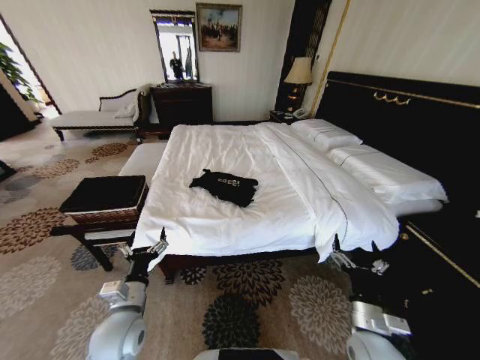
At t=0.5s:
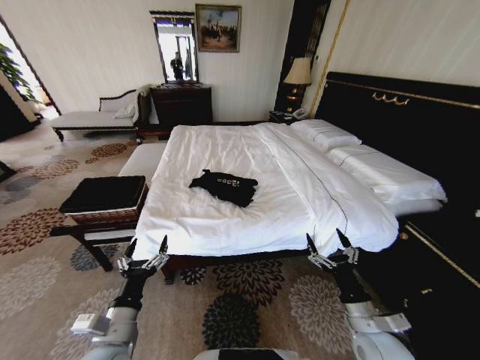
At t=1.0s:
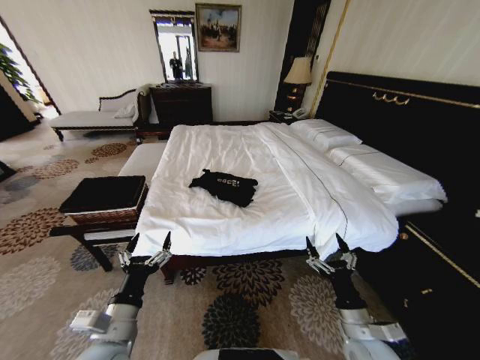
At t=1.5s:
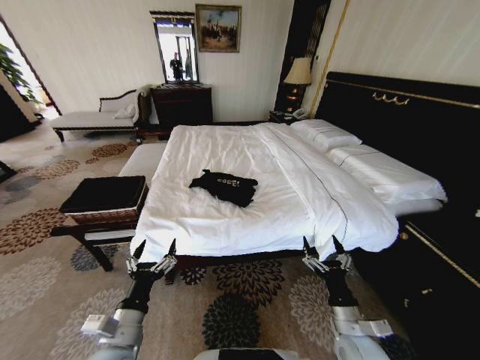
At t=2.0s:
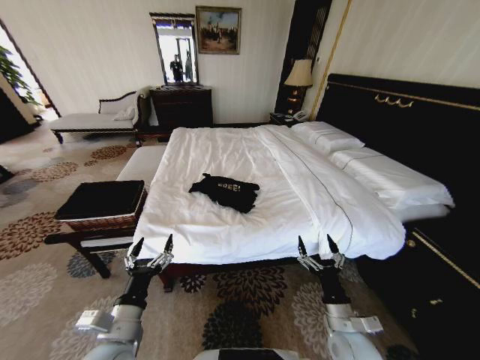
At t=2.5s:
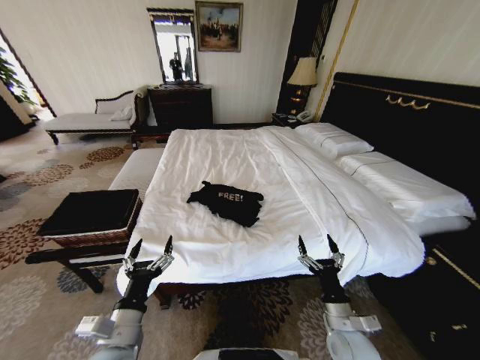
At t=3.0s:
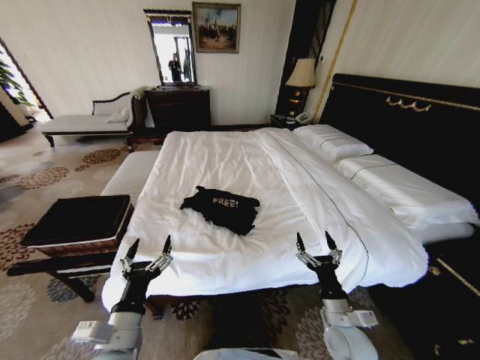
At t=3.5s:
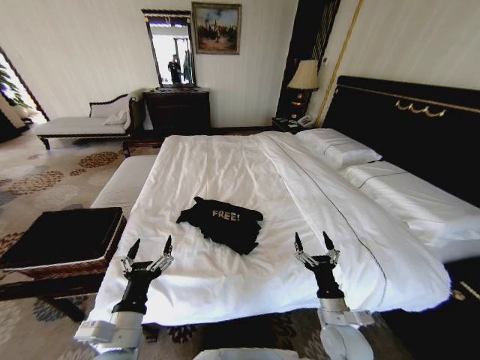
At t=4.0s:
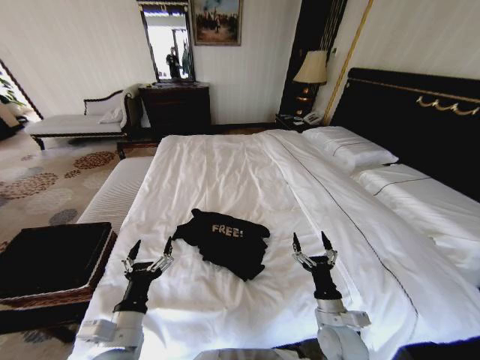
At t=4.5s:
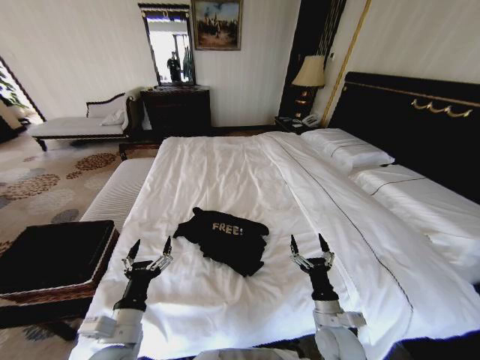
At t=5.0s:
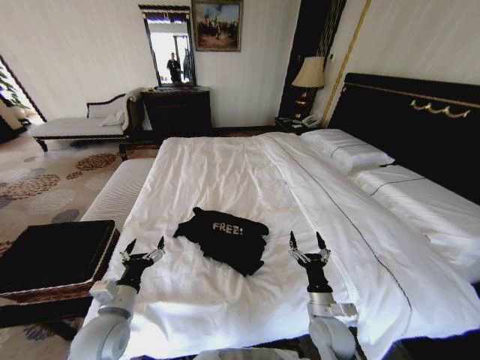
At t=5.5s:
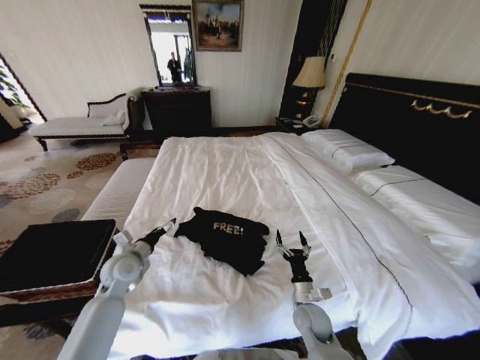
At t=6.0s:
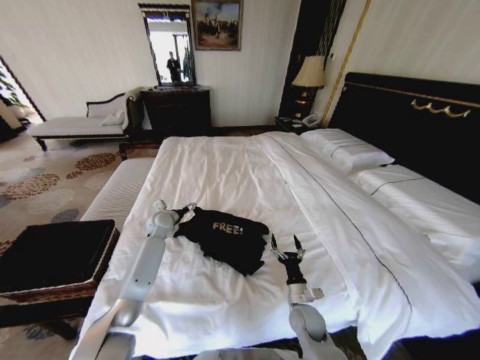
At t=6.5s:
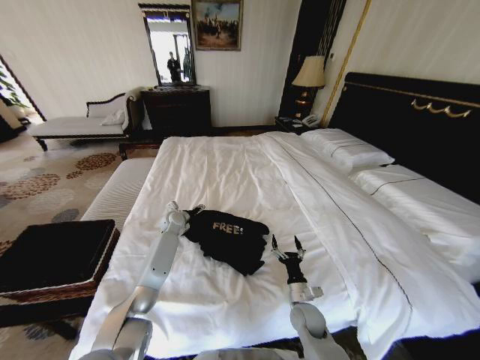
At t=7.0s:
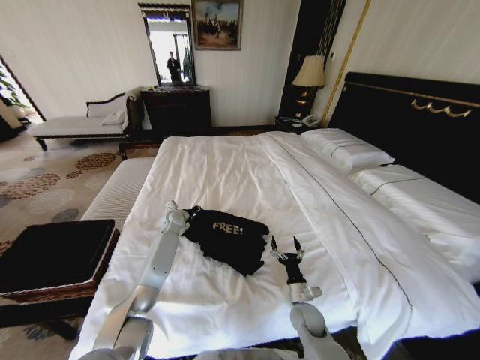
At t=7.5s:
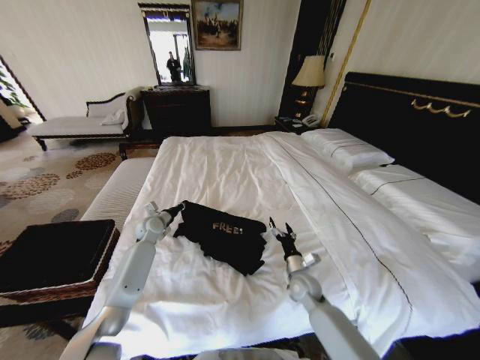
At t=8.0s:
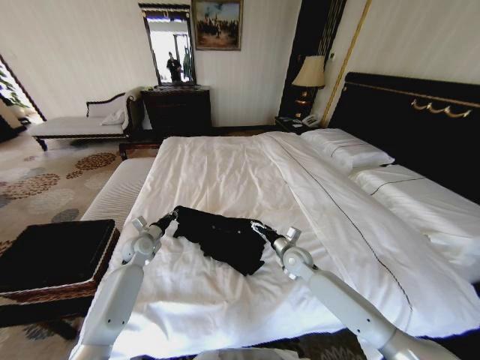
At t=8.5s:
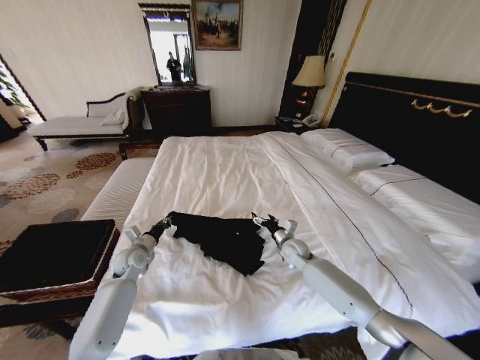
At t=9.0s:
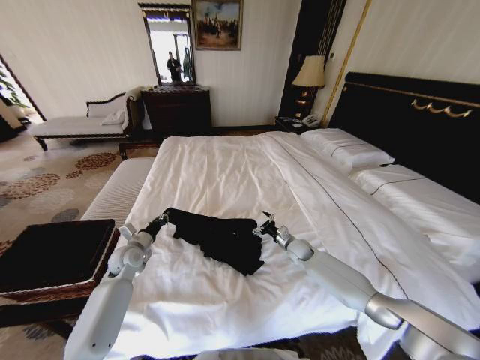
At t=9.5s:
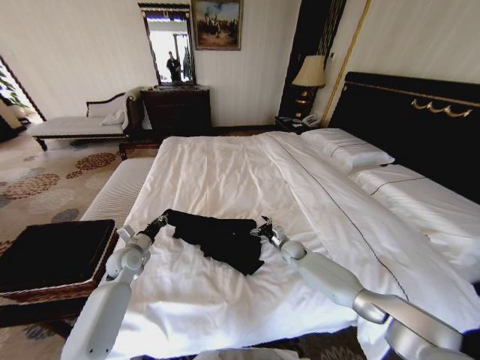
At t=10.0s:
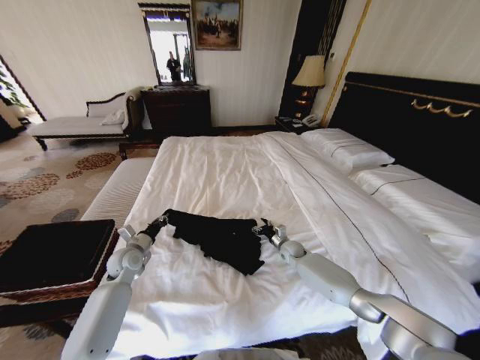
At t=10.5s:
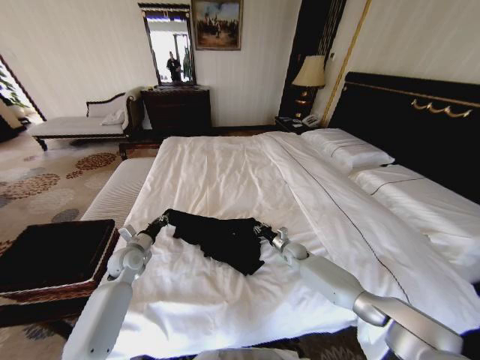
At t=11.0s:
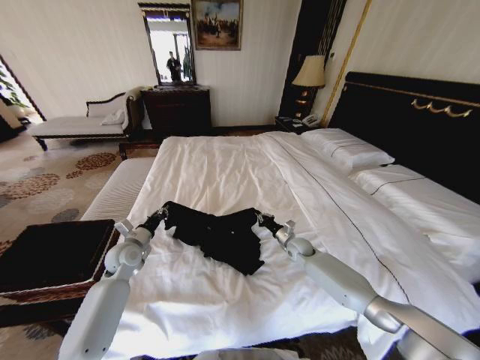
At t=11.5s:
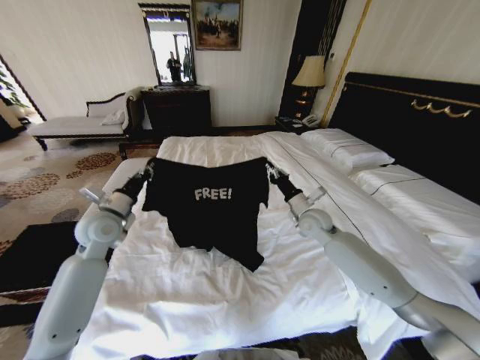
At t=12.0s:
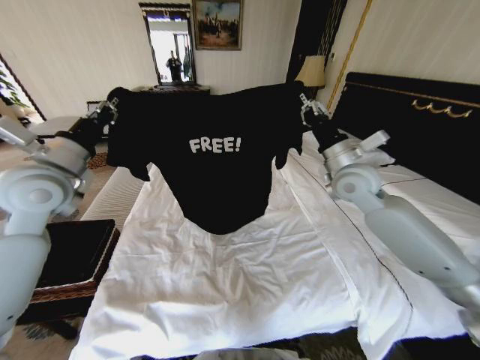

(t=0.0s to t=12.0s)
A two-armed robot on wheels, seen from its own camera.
Task of the whole recording: Fold the clothes on the bed and place them into the basket.
t=4.0s - t=6.0s: The right gripper heads downward and forward, covering about 10 cm; the left gripper shifts about 40 cm forward.
t=6.0s - t=8.0s: The right gripper goes approximately 20 cm forward and upward; the left gripper shifts roughly 10 cm backward and to the left, and closes its fingers.
t=8.0s - t=10.0s: The left gripper shifts approximately 5 cm backward. The right gripper shifts about 10 cm downward and forward.
t=10.0s - t=12.0s: The grippers both shift upward by approximately 35 cm. The right gripper closes.

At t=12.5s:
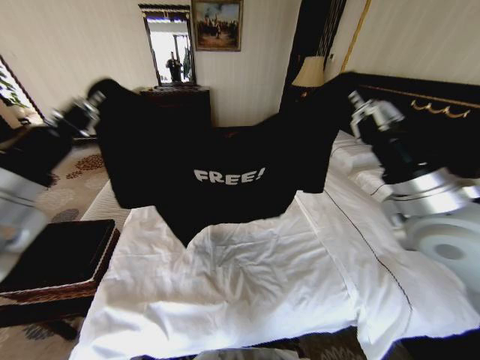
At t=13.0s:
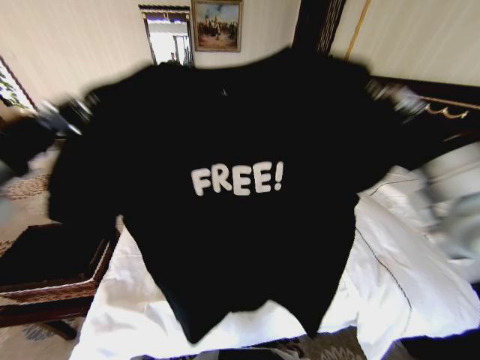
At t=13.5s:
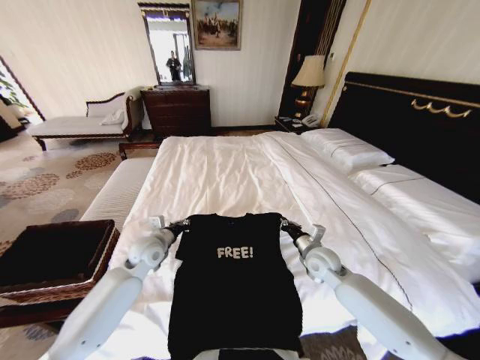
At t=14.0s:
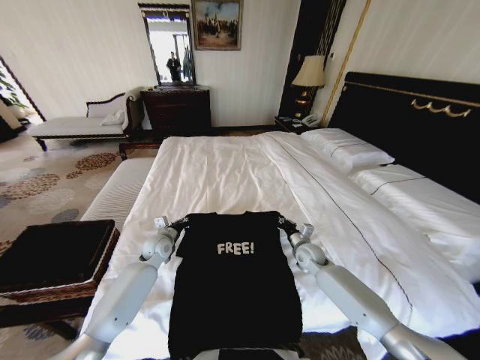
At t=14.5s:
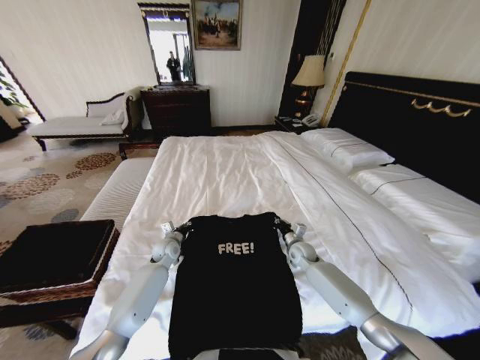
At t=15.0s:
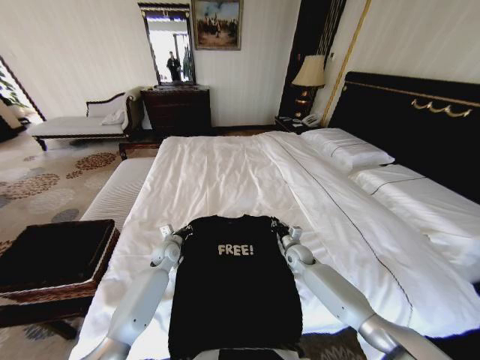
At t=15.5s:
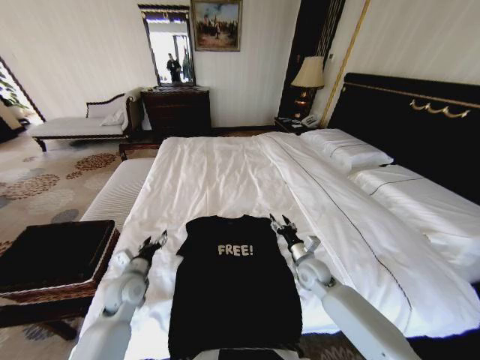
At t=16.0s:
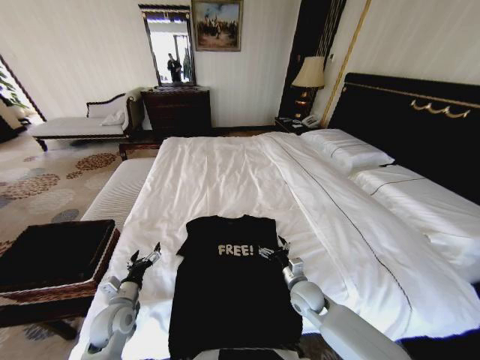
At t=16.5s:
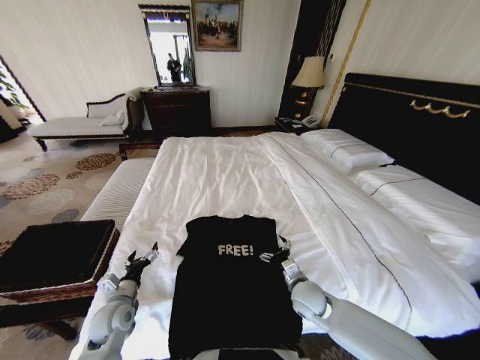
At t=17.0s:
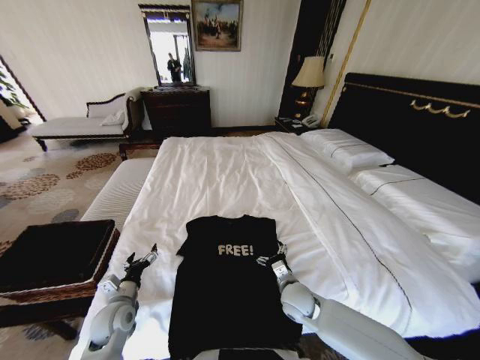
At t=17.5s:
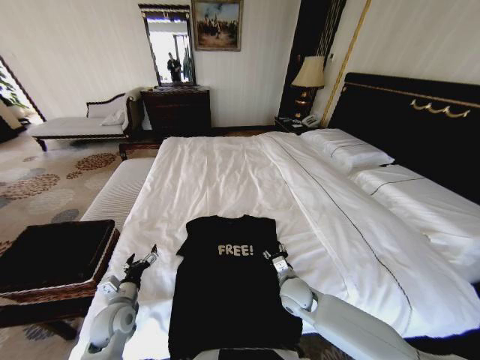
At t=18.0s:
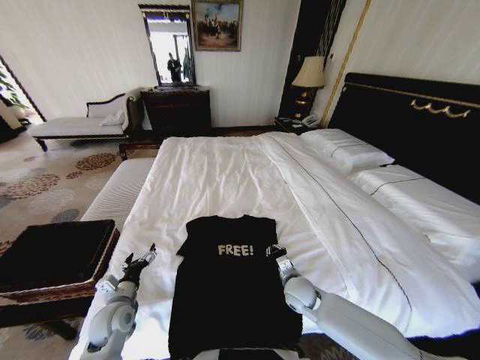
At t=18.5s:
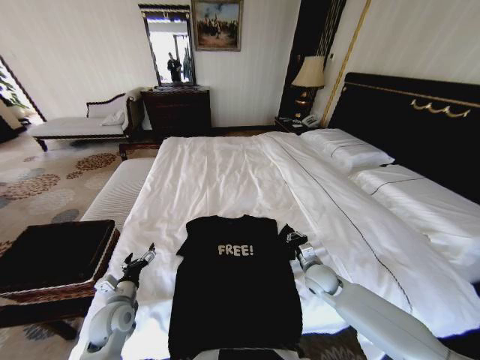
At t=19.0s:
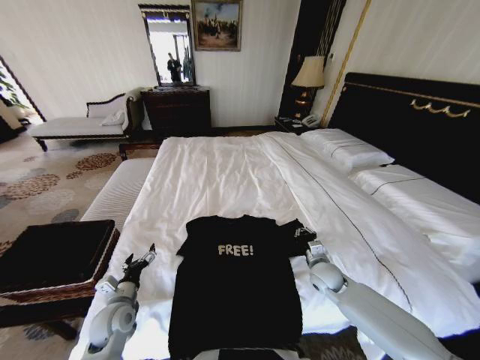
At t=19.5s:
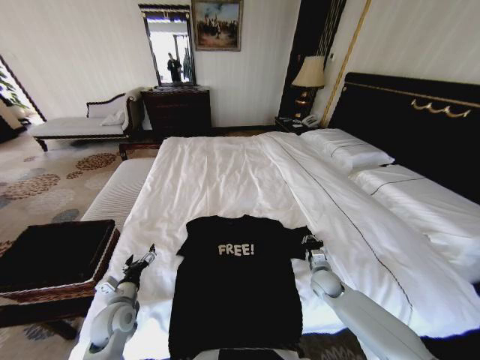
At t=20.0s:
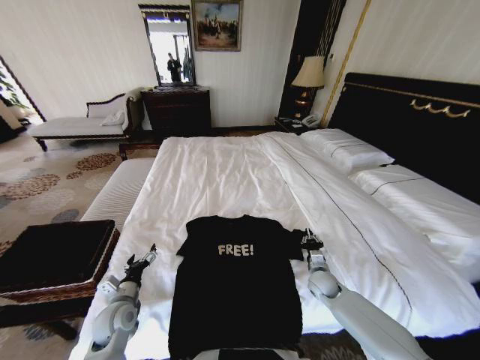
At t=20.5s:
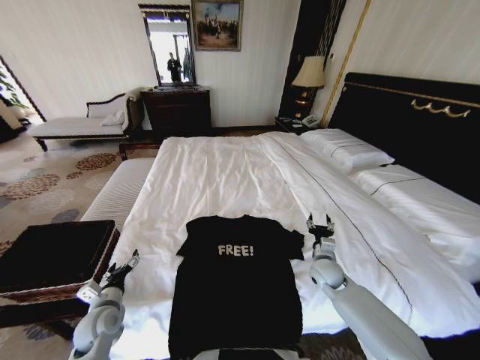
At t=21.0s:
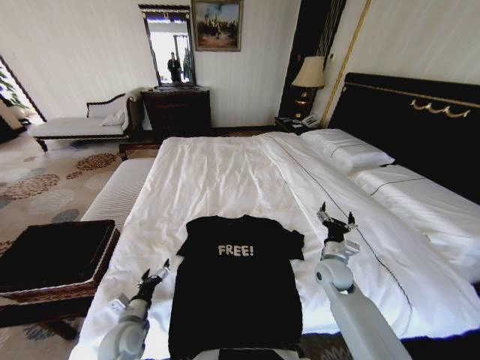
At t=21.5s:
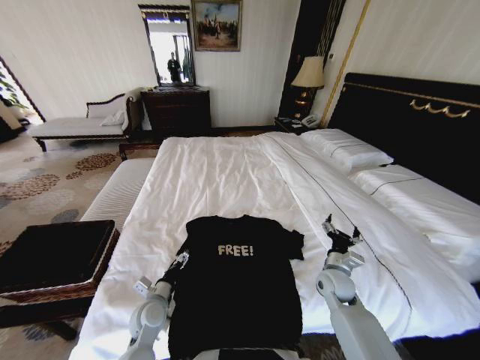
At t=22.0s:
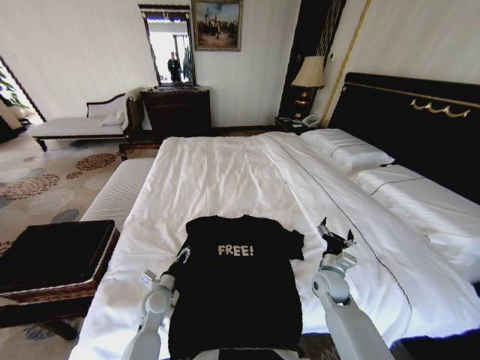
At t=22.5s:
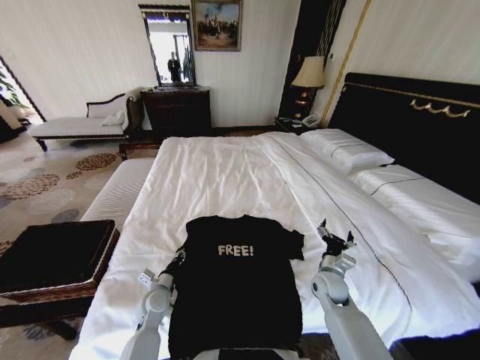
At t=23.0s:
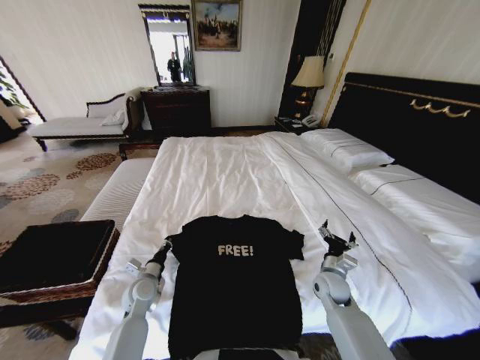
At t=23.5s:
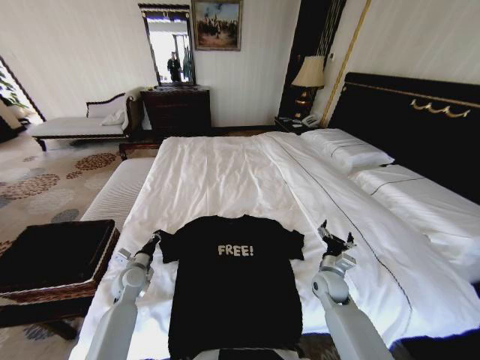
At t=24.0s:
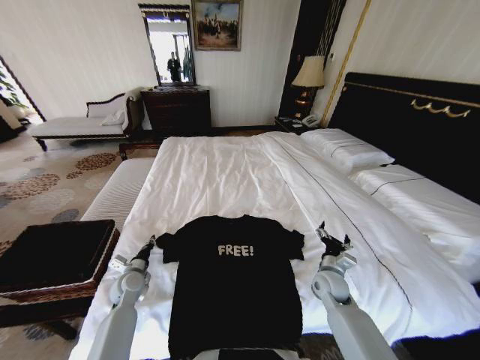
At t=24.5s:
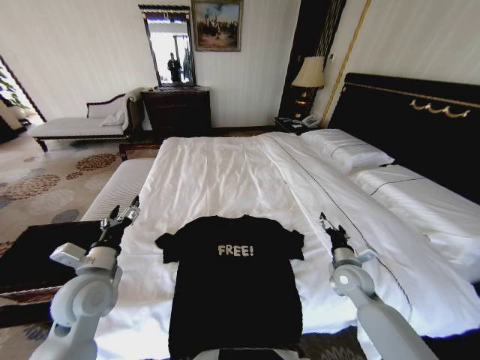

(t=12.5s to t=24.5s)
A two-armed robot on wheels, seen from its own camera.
Task of the whole recording: Fold the clothes on the bed and place them into the basket.
t=12.5s - t=14.5s: Both grippers move downward and forward, about 40 cm.
t=14.5s - t=16.5s: Both grippers move backward, about 20 cm. The right gripper opens up; the left gripper opens up.
t=16.5s - t=18.5s: The right gripper travels to the right and forward by some 10 cm, and closes up.
t=18.5s - t=20.5s: The right gripper opens its fingers.
t=20.5s - t=22.5s: The right gripper opens. The left gripper goes some 10 cm to the right and forward, and closes up.
t=22.5s - t=24.5s: The left gripper moves upward and to the left, some 20 cm, and opens up, while the right gripper heads upward, covering about 5 cm.

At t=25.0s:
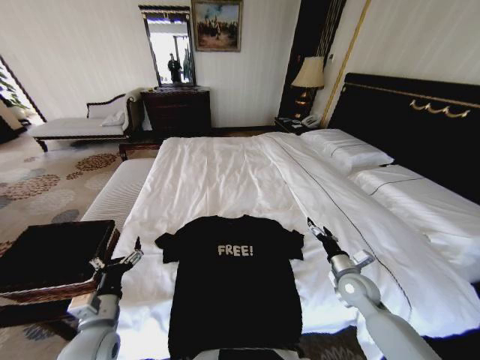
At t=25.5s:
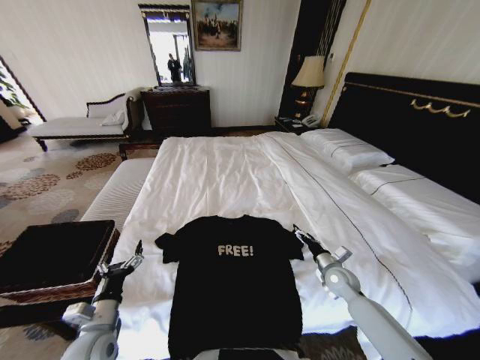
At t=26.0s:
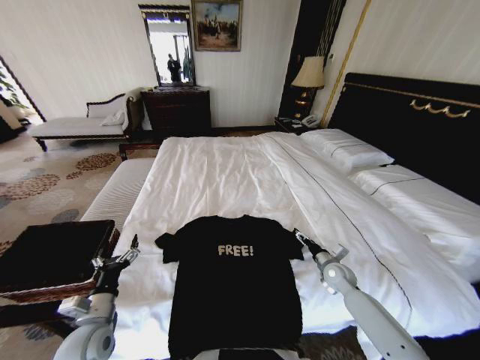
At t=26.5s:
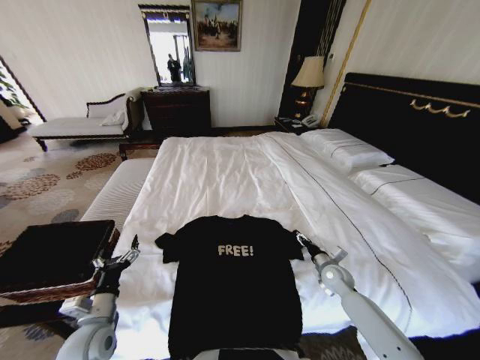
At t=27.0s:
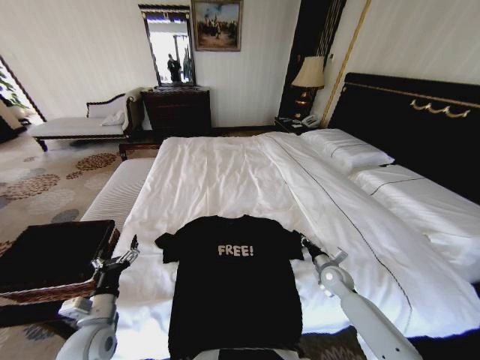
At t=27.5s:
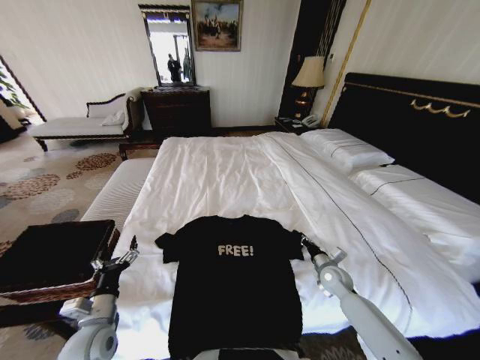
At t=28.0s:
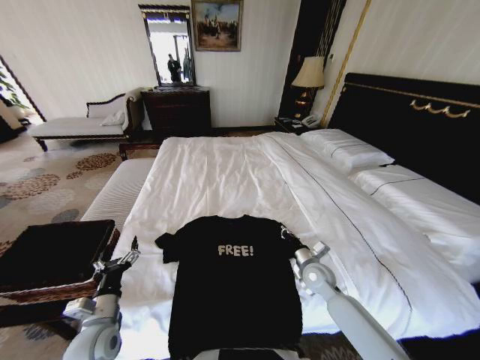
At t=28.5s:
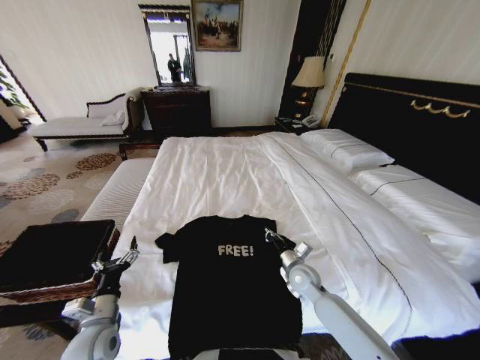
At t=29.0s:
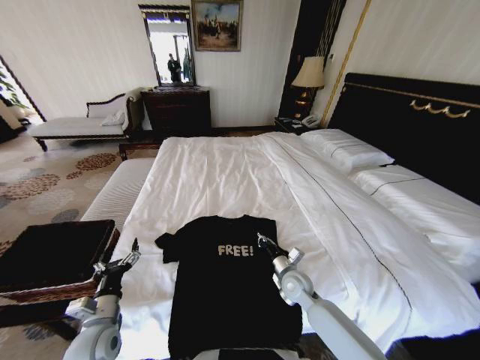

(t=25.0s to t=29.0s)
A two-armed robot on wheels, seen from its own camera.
Task of the whole recording: Fold the clothes on the bed and place them into the basket.
t=25.0s - t=27.0s: The right gripper is displaced downward and forward by about 10 cm, and closes up.
t=27.0s - t=29.0s: The right gripper travels to the left by about 15 cm.
